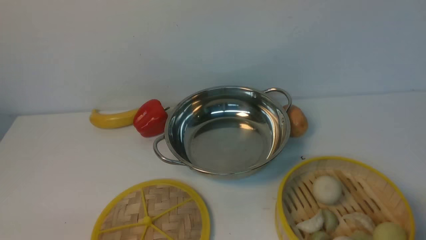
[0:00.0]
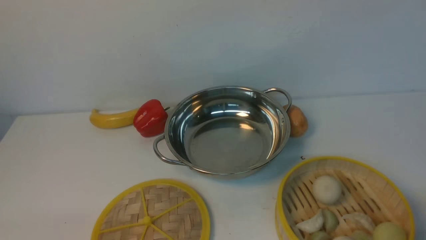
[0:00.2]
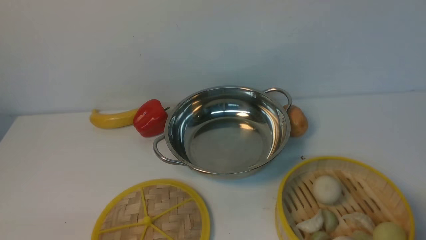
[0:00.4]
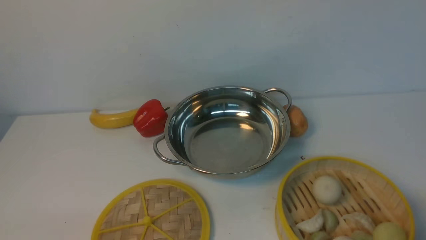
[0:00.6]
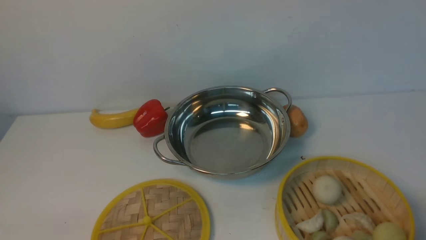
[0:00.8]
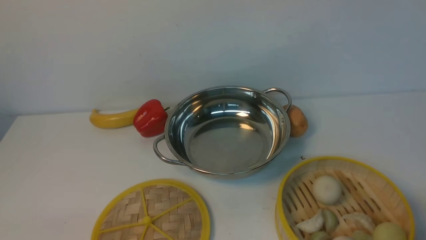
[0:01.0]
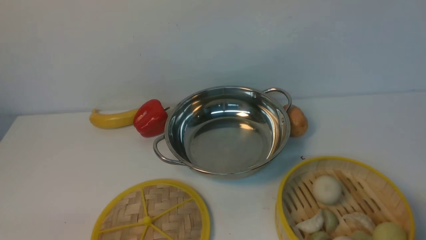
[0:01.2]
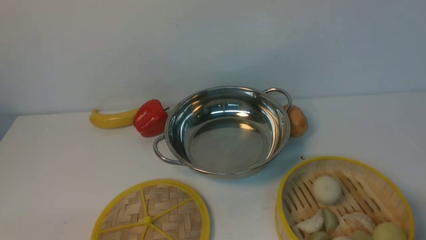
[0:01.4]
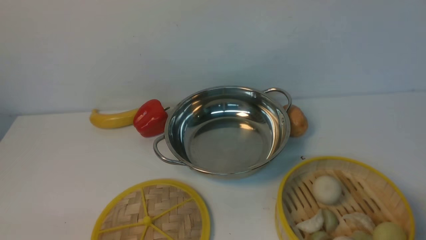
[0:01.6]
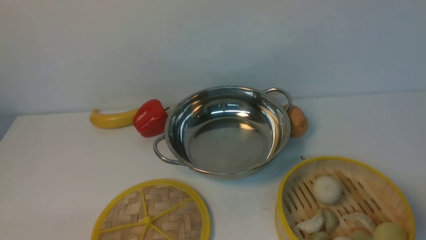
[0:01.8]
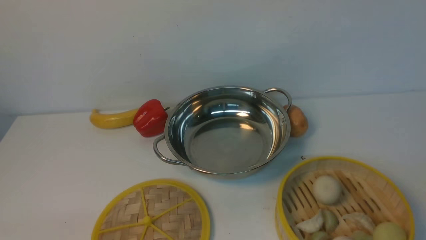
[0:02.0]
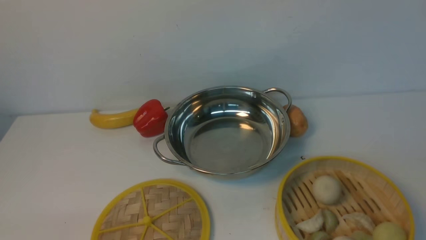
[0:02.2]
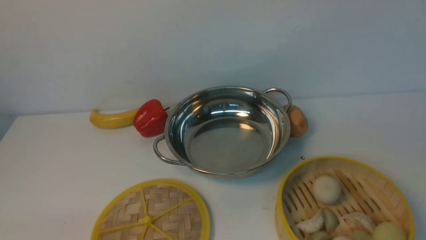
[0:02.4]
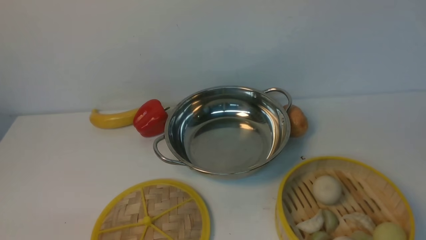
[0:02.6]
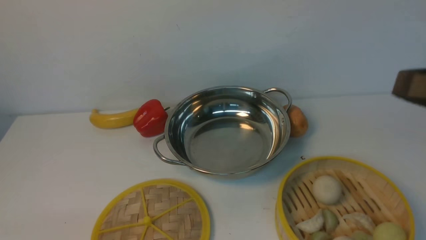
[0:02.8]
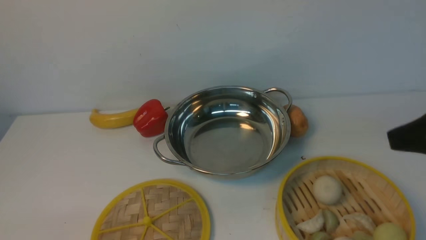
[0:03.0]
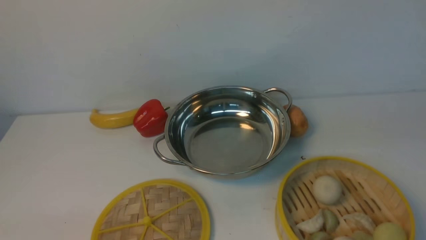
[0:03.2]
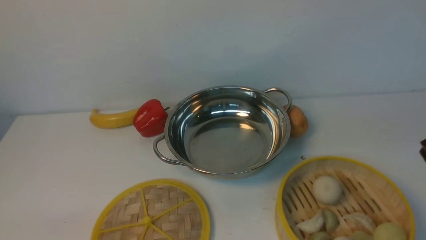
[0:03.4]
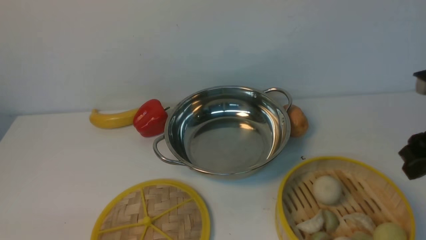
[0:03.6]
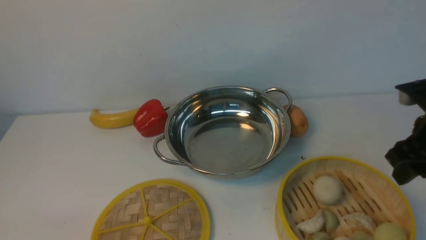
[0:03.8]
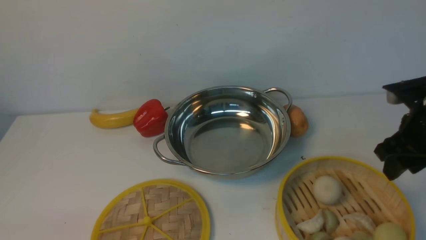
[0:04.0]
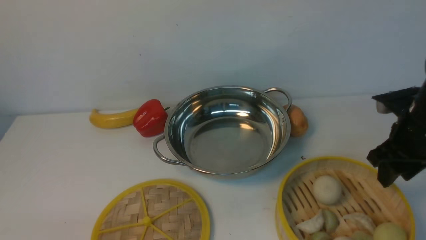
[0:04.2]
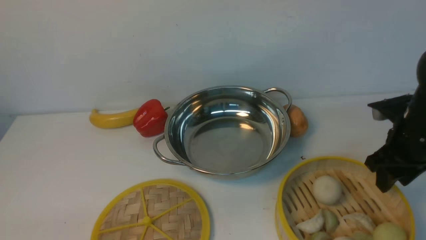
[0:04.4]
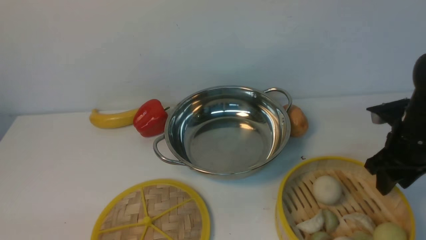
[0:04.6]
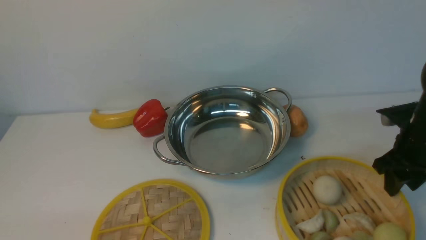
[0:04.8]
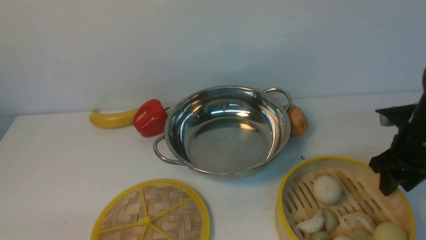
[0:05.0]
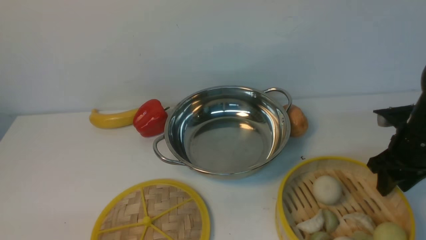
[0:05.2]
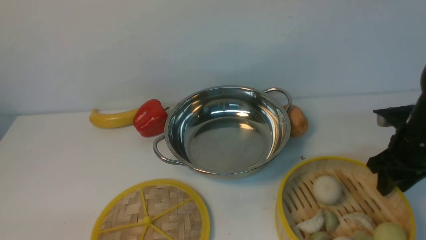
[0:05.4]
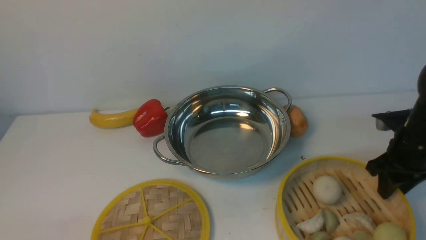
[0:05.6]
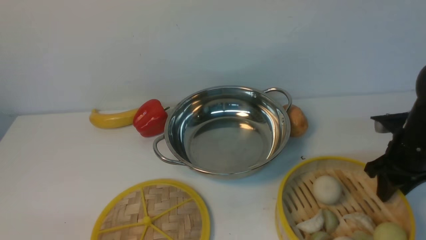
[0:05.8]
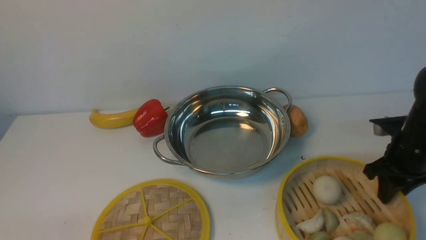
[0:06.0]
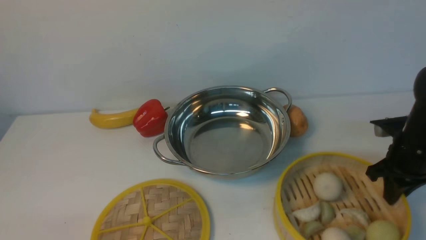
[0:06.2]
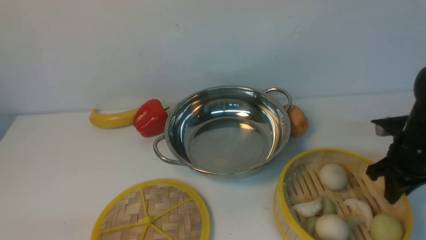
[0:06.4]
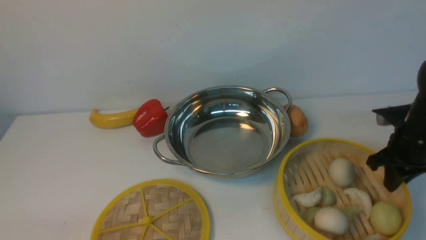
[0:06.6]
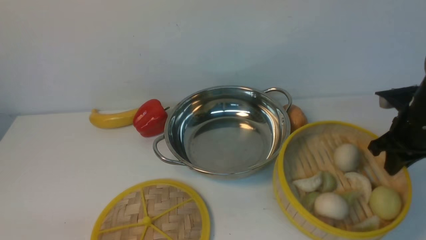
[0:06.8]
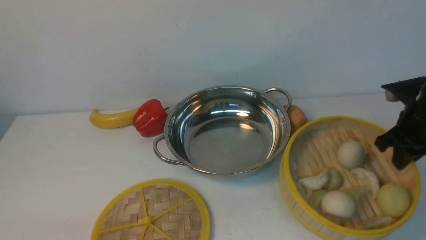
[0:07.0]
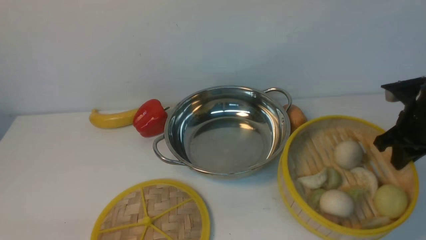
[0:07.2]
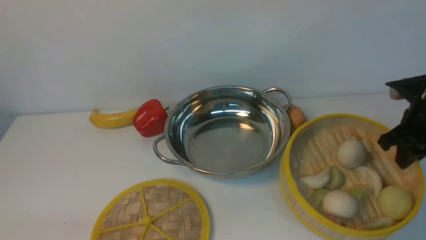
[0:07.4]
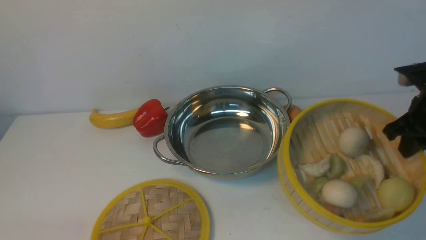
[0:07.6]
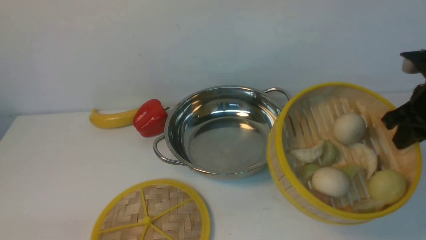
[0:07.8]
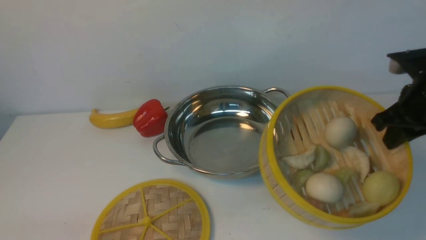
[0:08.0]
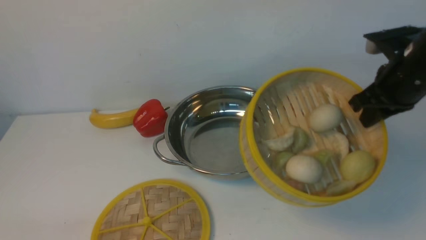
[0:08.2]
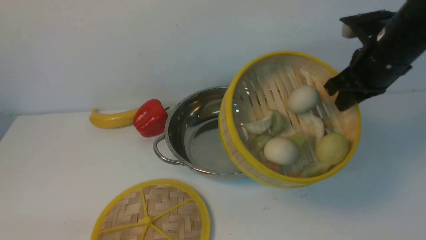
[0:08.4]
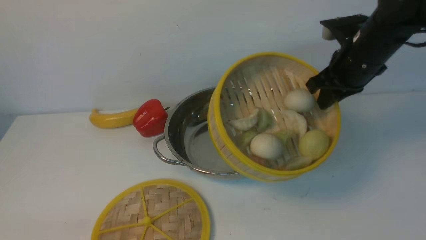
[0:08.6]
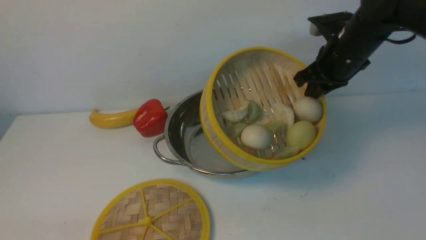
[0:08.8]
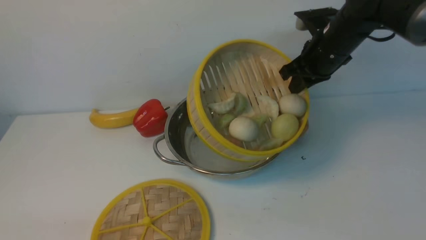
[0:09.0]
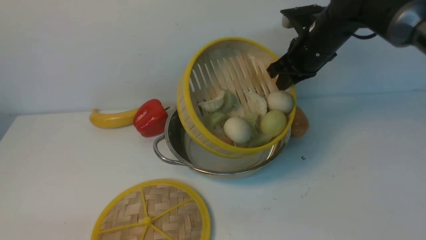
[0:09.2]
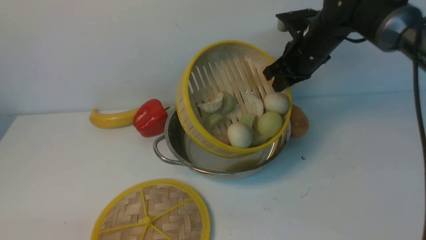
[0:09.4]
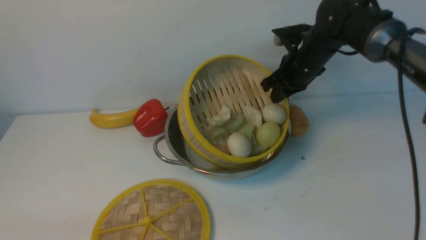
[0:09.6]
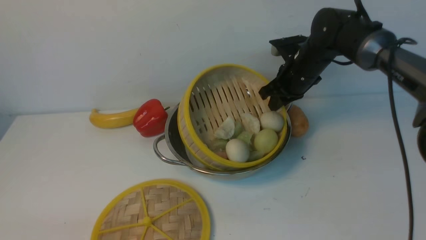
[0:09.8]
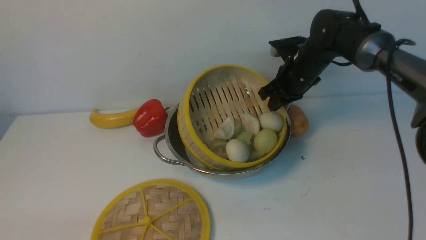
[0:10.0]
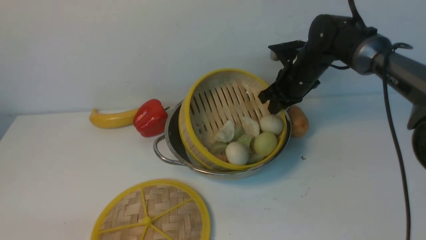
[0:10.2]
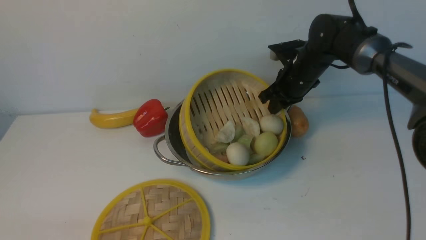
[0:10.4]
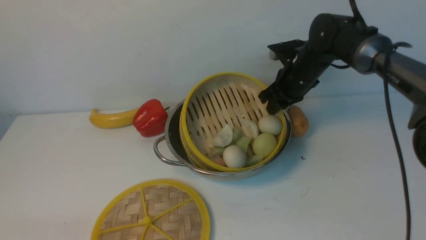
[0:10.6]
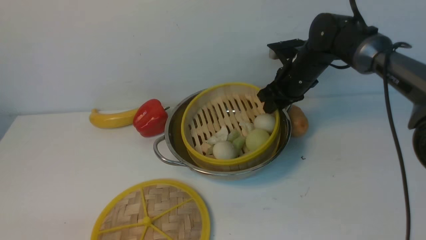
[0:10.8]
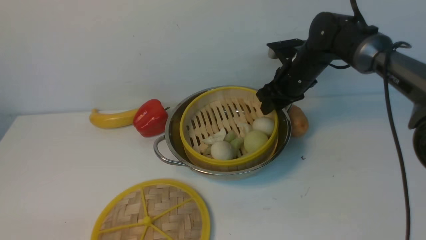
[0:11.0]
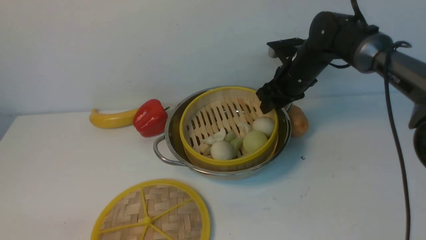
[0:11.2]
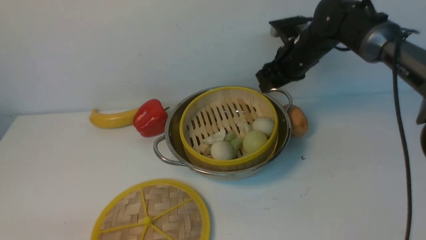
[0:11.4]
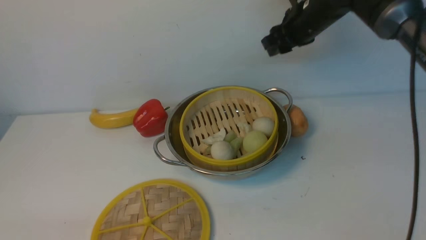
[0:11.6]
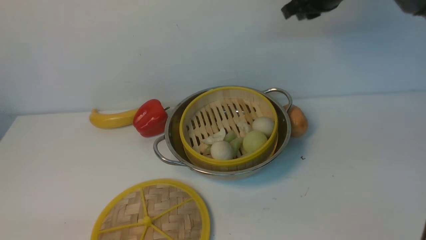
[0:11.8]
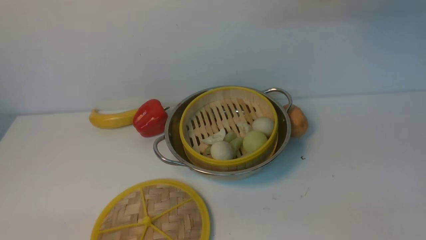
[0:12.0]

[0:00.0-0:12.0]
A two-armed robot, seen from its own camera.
Task of the whole recording: place the steamer in the pot on the white table, and put the lid on the steamer.
Step, 0:00.0 to 0:07.0: use the right arm to lift the steamer closest to it.
Step, 0:07.2 to 0:11.6: use the right arm to put the steamer into the iron steamer pot in the middle.
0:01.6 to 0:03.0: The right gripper moves upward and forward, about 20 cm.
0:03.0 to 0:04.4: The right gripper is displaced downward and forward by some 20 cm, and opens up.
0:04.4 to 0:06.0: The right gripper closes.
0:06.0 to 0:07.6: The right gripper travels upward by some 10 cm, and closes up.
0:07.6 to 0:09.0: The right gripper goes roughly 15 cm to the left and forward.
0:09.0 to 0:10.4: The right gripper is displaced downward by approximately 10 cm.
0:10.4 to 0:12.0: The right gripper moves upward, approximately 20 cm, and opens and closes again.

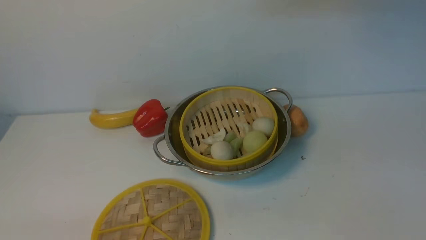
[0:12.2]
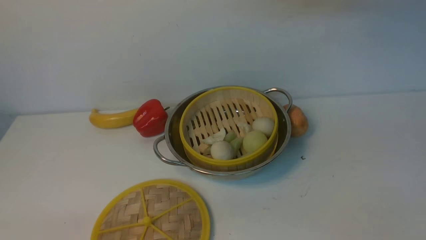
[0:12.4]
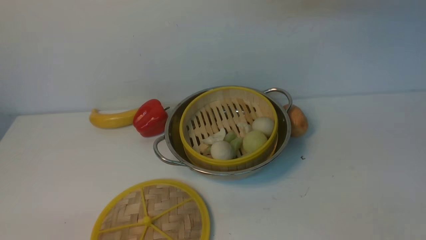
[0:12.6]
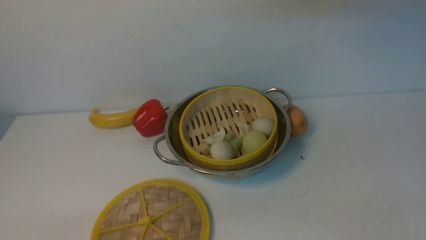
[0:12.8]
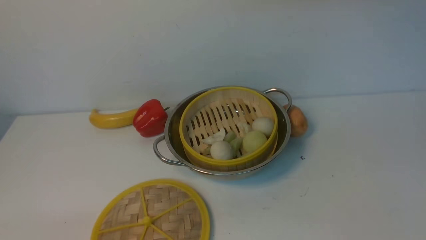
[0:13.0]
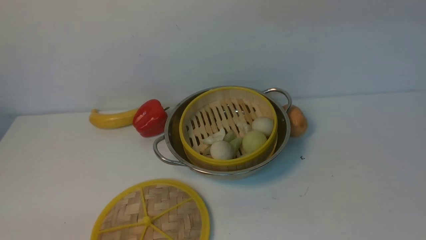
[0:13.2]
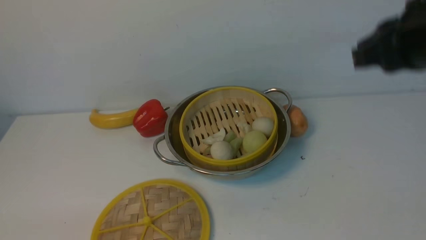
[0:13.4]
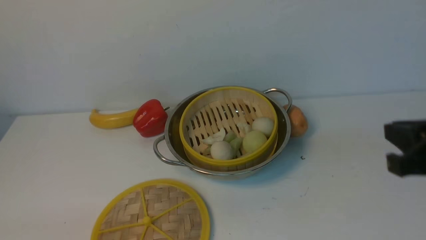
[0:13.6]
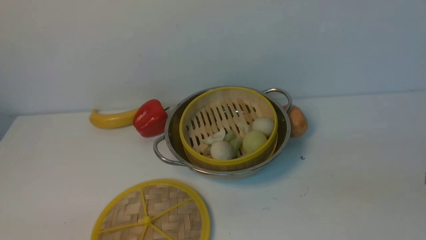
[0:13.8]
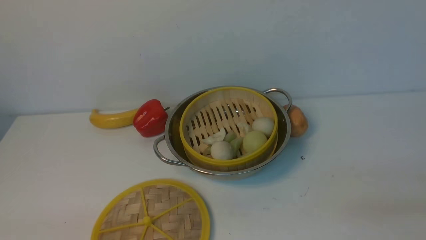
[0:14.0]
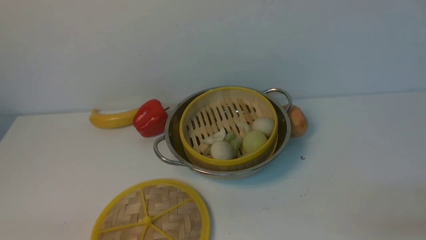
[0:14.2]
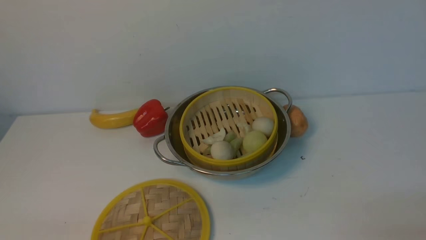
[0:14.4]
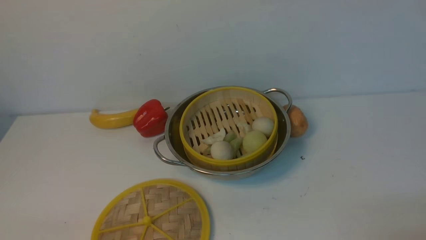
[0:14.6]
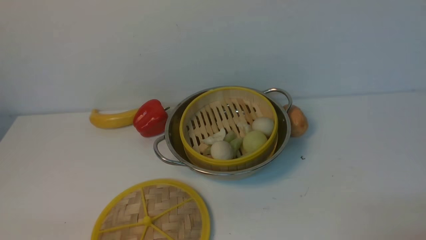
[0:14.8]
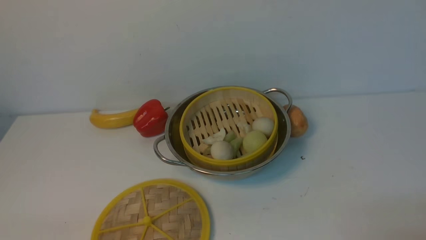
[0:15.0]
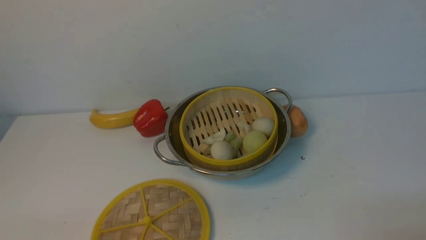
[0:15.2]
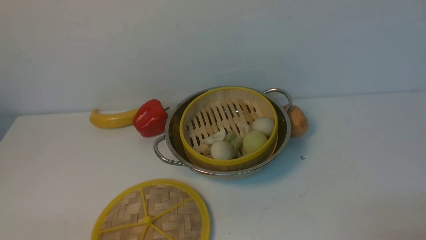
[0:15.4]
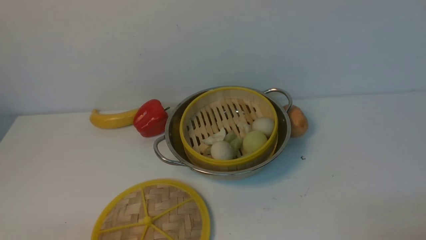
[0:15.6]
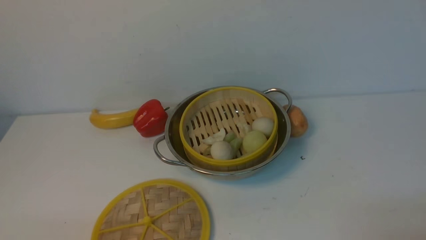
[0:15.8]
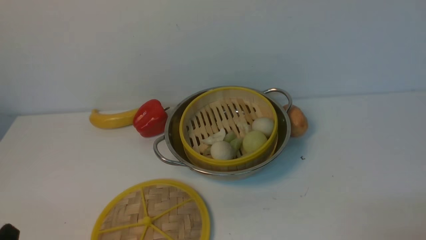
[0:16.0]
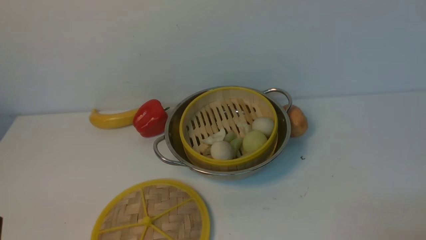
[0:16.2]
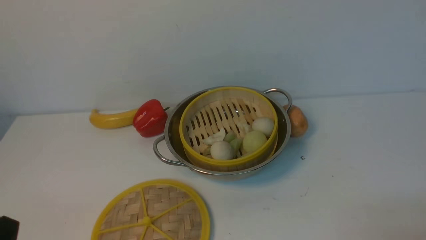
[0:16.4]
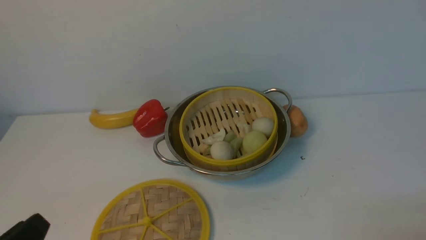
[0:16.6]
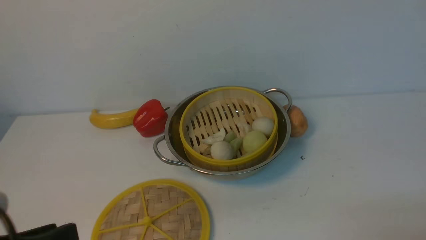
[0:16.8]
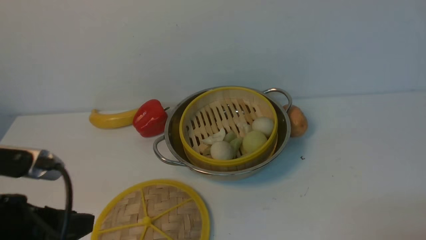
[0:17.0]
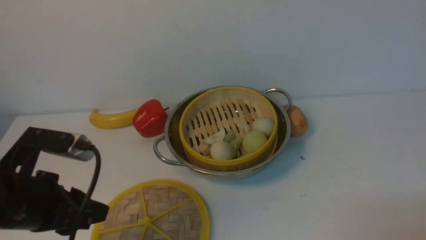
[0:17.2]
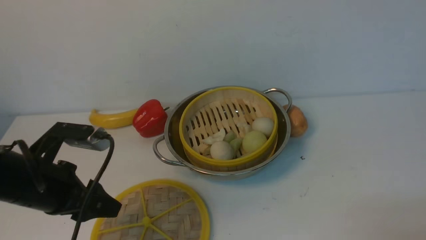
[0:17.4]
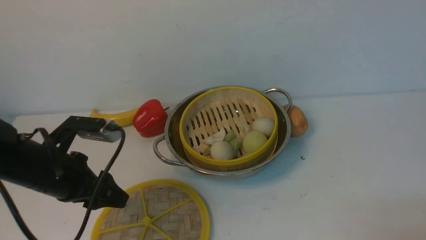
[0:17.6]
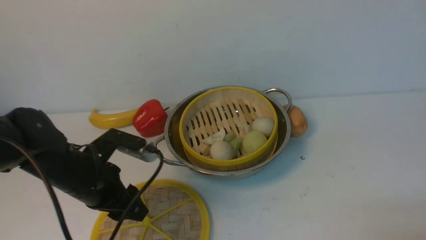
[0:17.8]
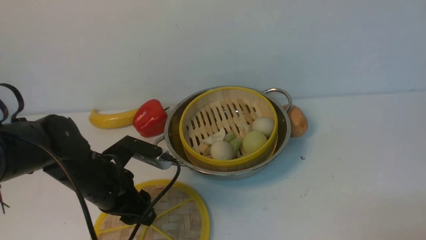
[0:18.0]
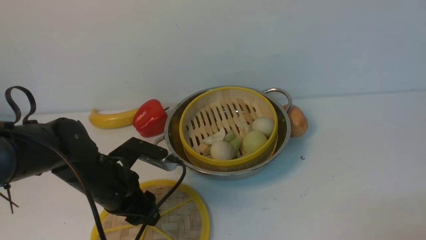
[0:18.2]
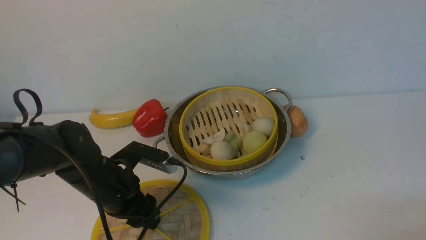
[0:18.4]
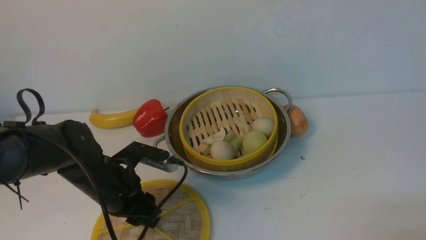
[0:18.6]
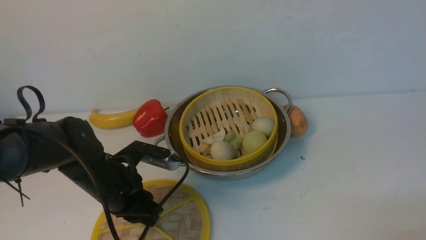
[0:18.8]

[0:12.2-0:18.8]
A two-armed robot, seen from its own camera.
Task of the whole recording: place the steamer in the pot on the white table, and put the lid on the steamer.
0:15.4 to 0:17.2: The left gripper is displaced forward and upward by about 15 cm.
0:17.2 to 0:18.8: The left gripper travels downward, forward and to the right by about 15 cm, and closes up.
